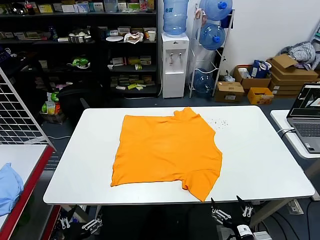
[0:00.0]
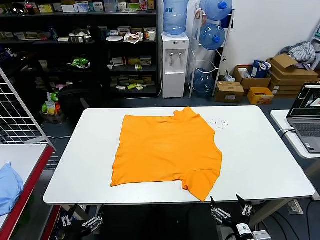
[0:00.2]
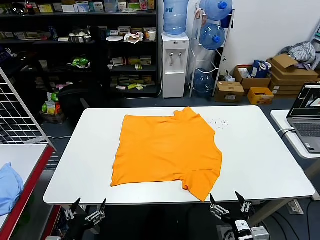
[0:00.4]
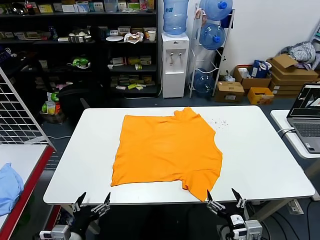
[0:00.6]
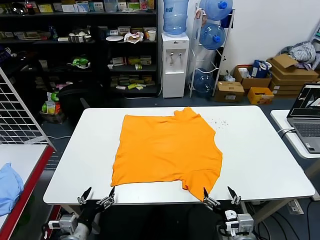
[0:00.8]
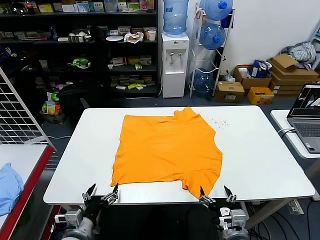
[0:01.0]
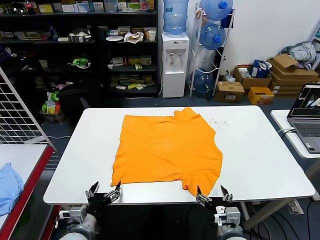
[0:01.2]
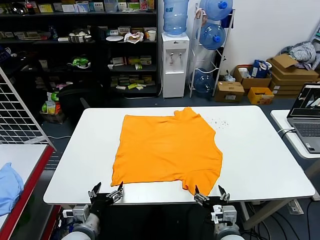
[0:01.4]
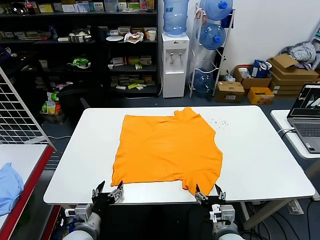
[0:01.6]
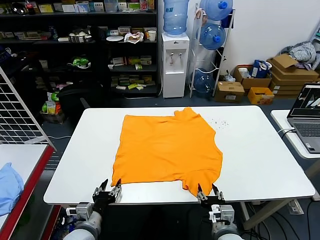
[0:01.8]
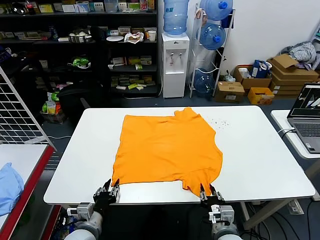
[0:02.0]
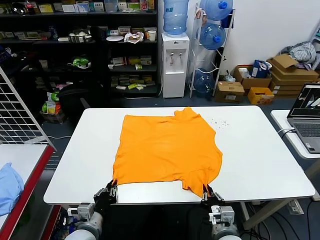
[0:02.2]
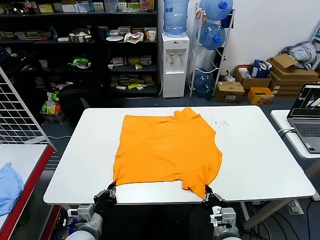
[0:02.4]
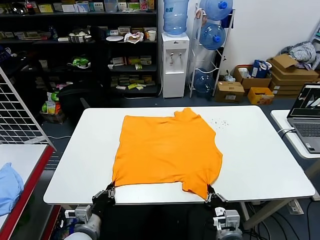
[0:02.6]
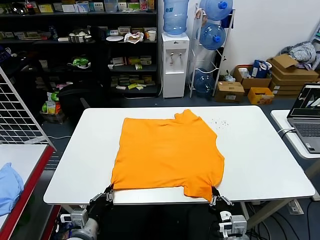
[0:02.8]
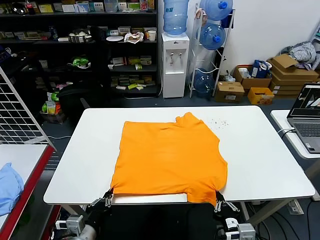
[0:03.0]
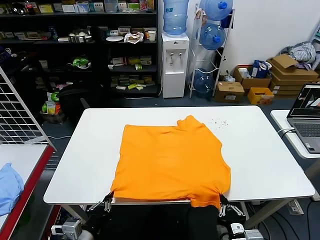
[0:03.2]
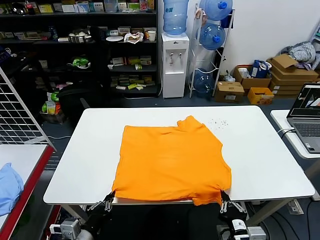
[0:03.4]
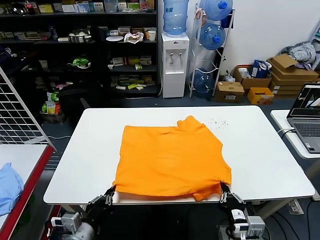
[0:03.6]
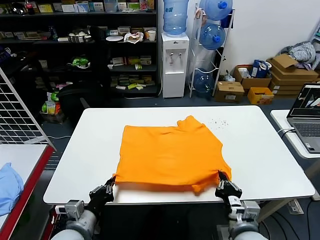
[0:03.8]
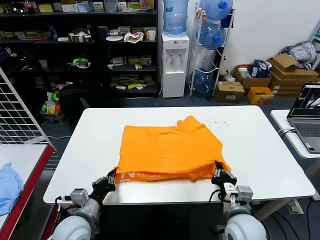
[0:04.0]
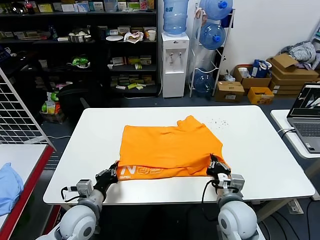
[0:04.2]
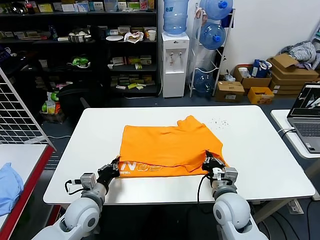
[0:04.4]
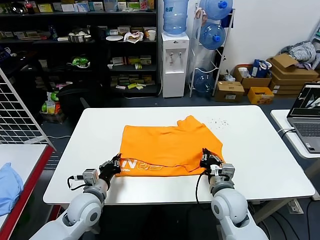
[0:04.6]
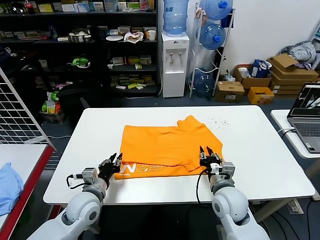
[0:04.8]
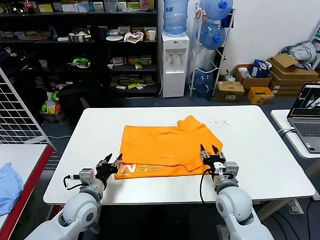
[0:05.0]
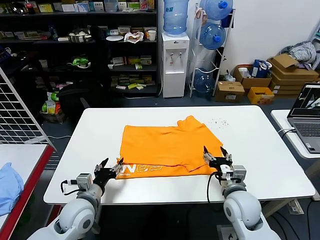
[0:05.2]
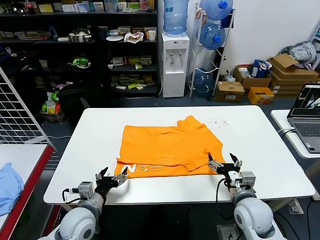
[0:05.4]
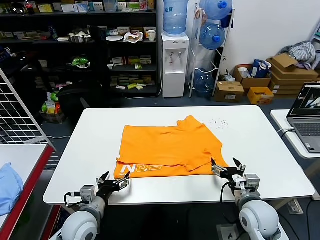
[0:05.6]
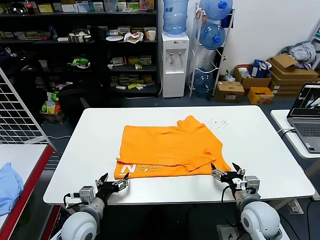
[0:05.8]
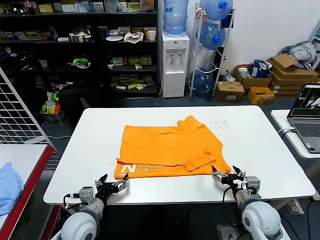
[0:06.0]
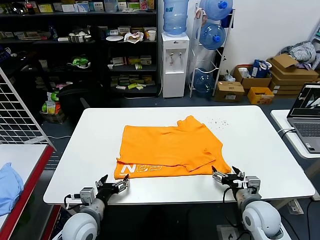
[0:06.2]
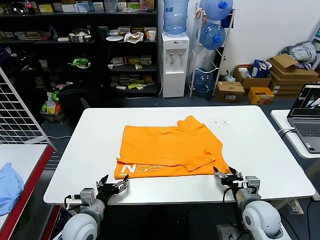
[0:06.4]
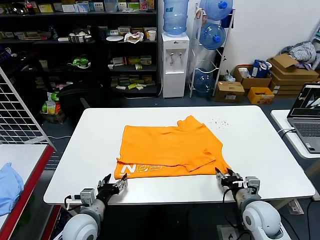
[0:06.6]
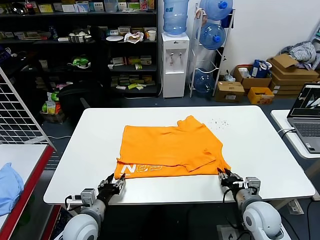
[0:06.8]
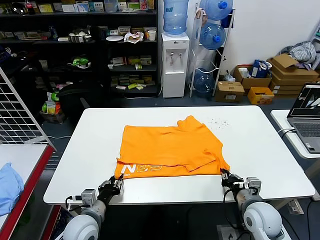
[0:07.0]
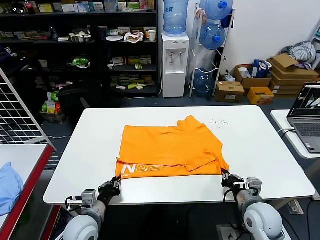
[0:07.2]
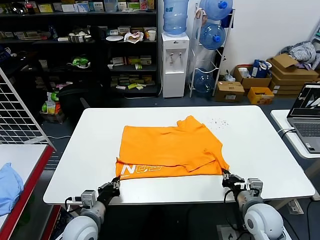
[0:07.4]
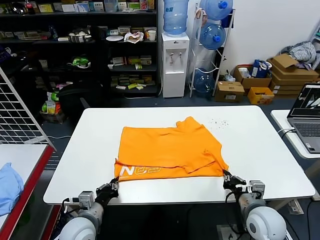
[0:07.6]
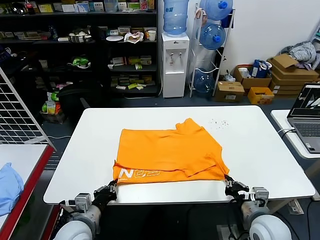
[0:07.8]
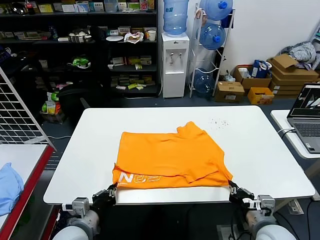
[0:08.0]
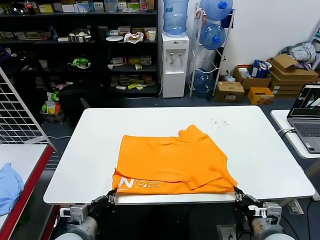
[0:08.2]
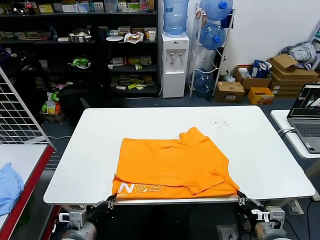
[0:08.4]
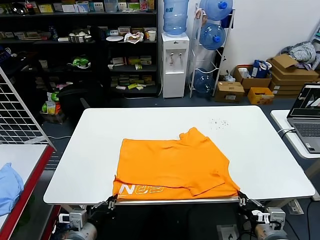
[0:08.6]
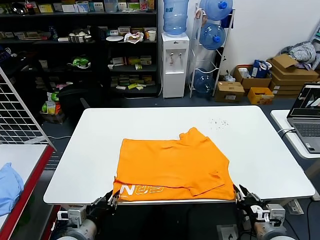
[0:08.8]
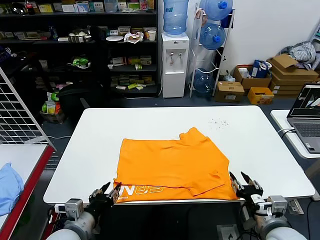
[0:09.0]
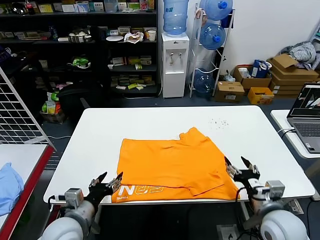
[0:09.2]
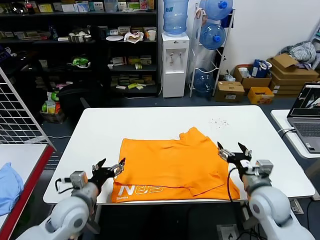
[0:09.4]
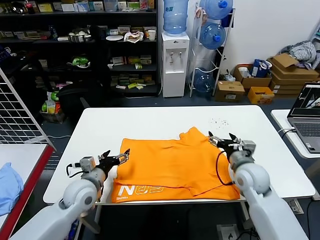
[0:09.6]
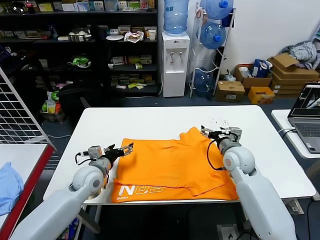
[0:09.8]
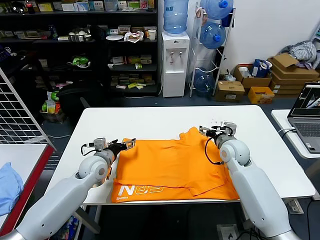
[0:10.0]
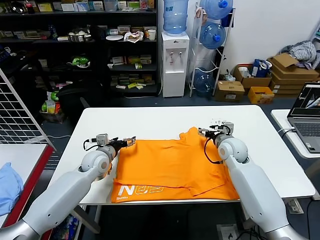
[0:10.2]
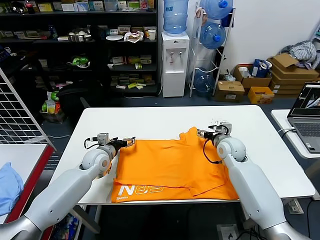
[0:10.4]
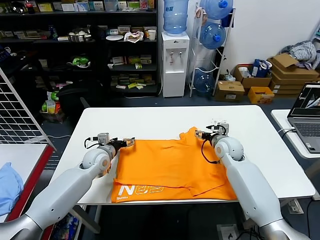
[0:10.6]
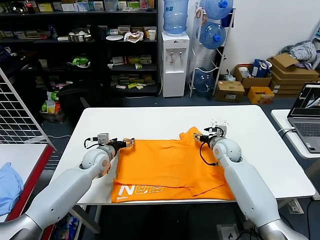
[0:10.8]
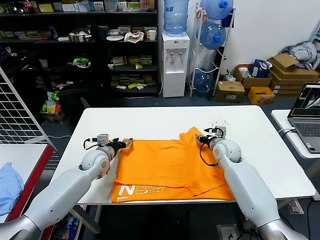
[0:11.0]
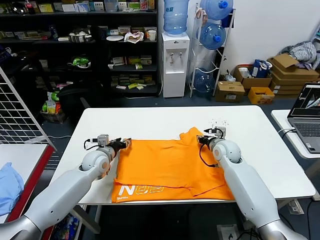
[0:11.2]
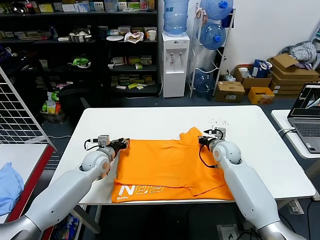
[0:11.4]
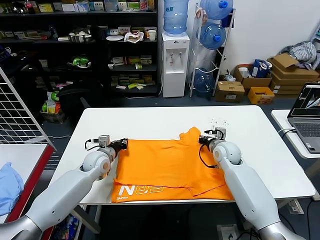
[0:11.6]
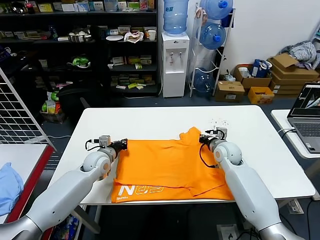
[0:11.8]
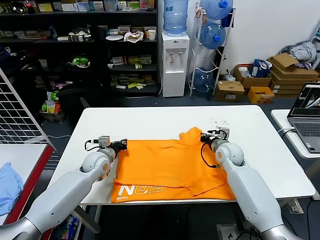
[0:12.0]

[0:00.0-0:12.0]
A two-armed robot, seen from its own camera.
Task of the whole recording: fold and organize the clothes.
Step, 0:00.0 to 0:02.2: use both grippers simultaneously to clamp the lower edge of the clothing fabric.
Step, 0:02.4 to 0:04.6: use both grippers to drag the lower edge of the fabric forward and fold it over the upper edge.
Step, 0:05.0 to 0:08.8: Drag the clothes downward with both gripper.
Step, 0:09.0 to 0:11.6: use both grippers simultaneously to clamp the upper edge of the clothing fabric.
0:01.6 to 0:03.0: The left gripper closes up, while the right gripper moves backward, approximately 5 cm, and closes.
0:03.0 to 0:04.4: The right gripper moves forward, some 15 cm, while the left gripper travels forward by about 10 cm.
0:04.4 to 0:06.0: The left gripper opens its fingers. Meanwhile the right gripper goes about 10 cm to the right, and opens.
0:06.0 to 0:07.6: The right gripper closes. The left gripper closes.
0:07.6 to 0:09.0: The right gripper moves roughly 5 cm, and opens its fingers; the left gripper travels upward and backward by some 10 cm, and opens up.
0:09.0 to 0:10.4: Both grippers travel together forward, some 30 cm. The left gripper opens its fingers, while the right gripper opens.
0:10.4 to 0:12.0: The right gripper closes its fingers, while the left gripper closes.

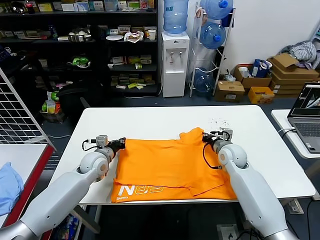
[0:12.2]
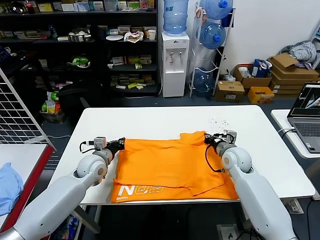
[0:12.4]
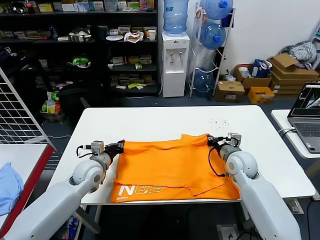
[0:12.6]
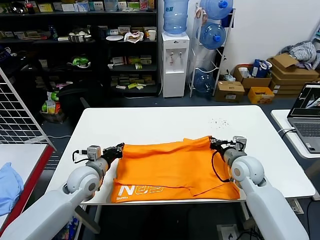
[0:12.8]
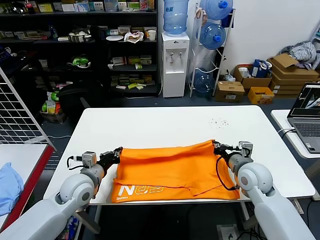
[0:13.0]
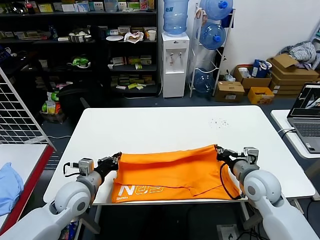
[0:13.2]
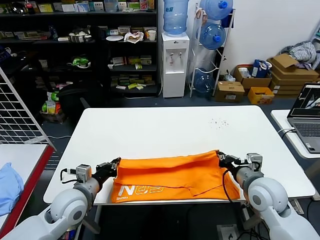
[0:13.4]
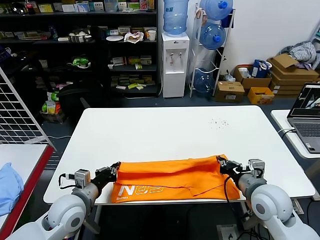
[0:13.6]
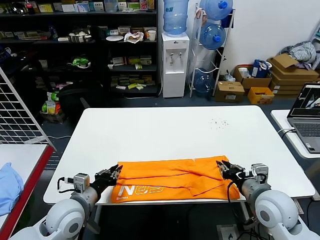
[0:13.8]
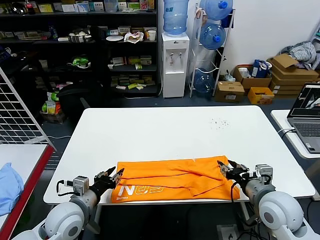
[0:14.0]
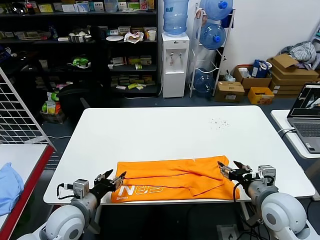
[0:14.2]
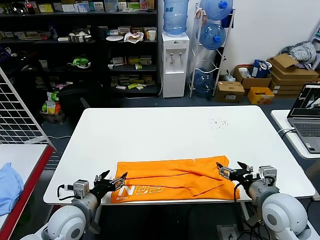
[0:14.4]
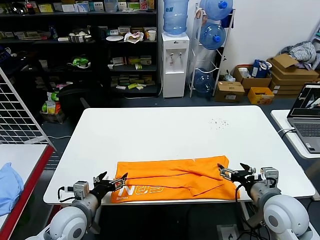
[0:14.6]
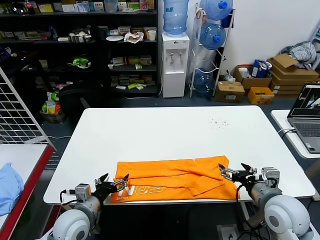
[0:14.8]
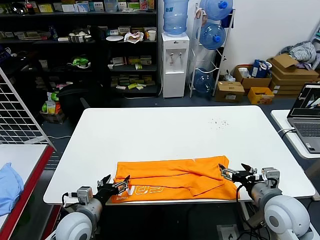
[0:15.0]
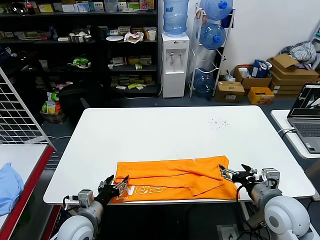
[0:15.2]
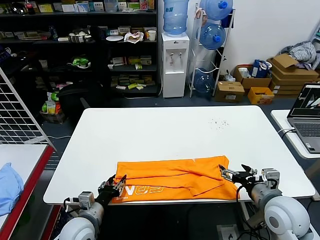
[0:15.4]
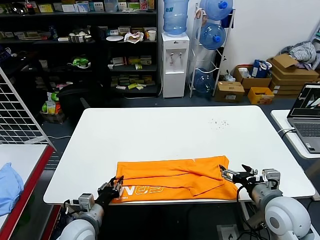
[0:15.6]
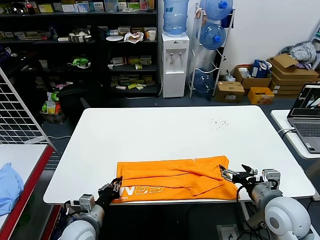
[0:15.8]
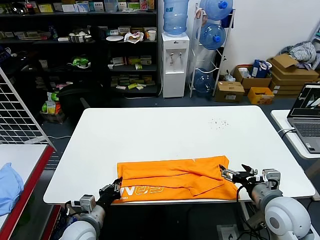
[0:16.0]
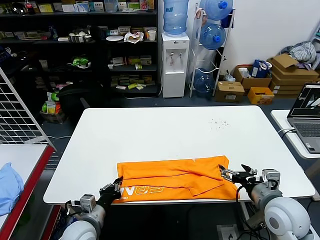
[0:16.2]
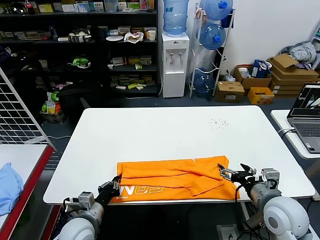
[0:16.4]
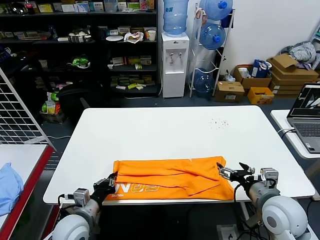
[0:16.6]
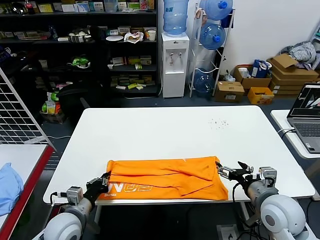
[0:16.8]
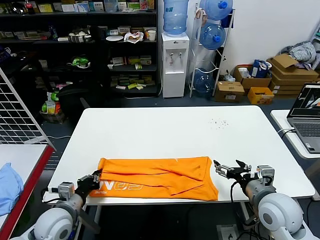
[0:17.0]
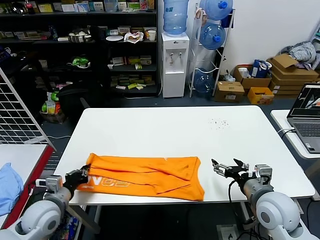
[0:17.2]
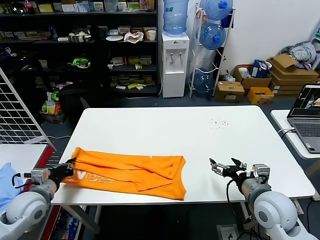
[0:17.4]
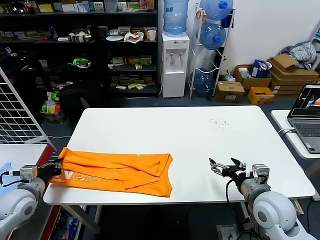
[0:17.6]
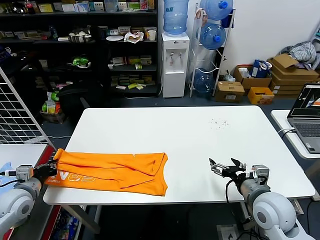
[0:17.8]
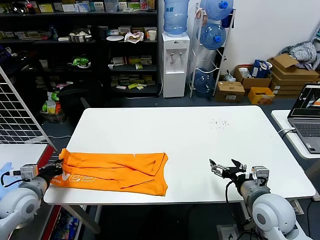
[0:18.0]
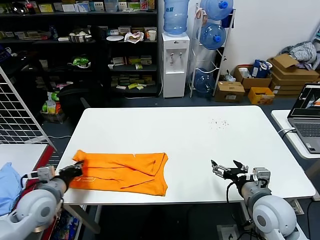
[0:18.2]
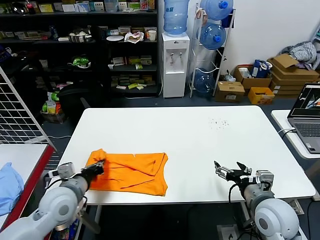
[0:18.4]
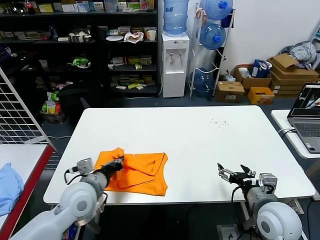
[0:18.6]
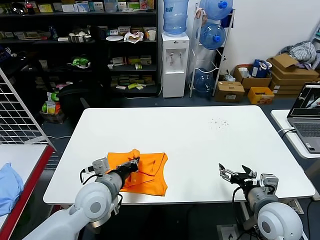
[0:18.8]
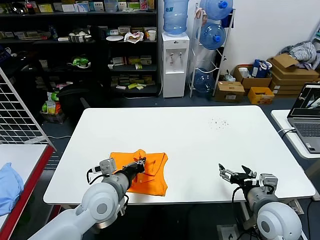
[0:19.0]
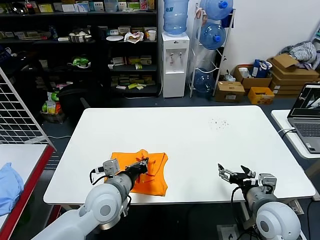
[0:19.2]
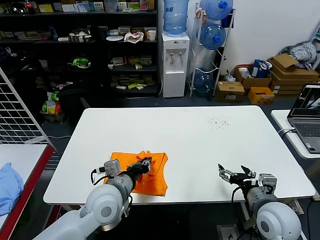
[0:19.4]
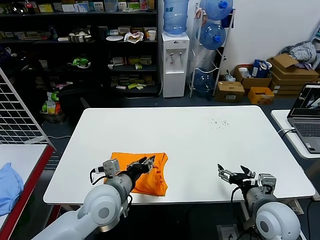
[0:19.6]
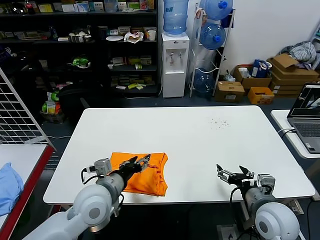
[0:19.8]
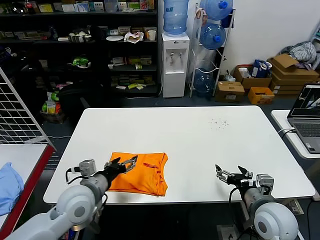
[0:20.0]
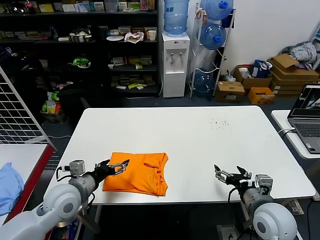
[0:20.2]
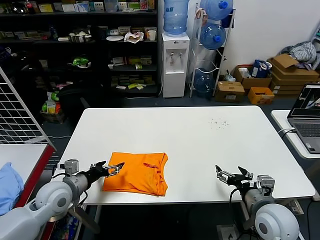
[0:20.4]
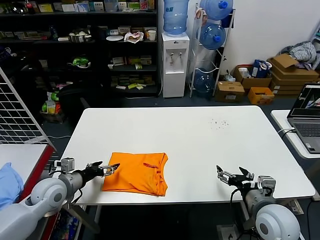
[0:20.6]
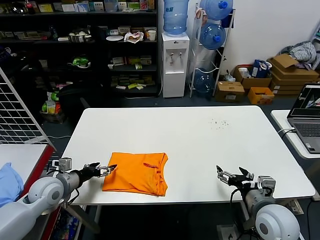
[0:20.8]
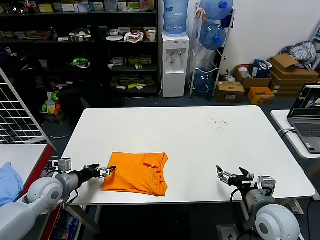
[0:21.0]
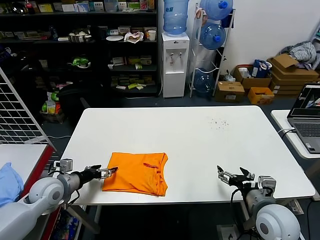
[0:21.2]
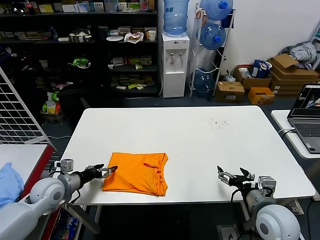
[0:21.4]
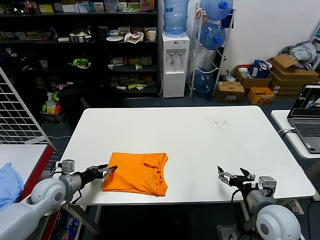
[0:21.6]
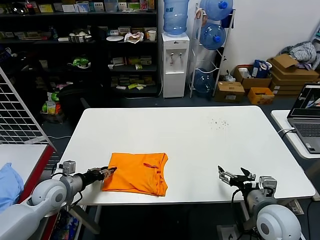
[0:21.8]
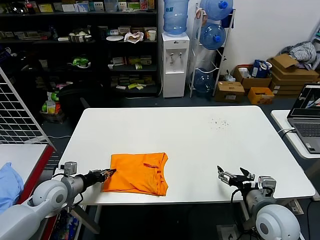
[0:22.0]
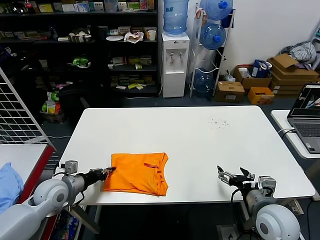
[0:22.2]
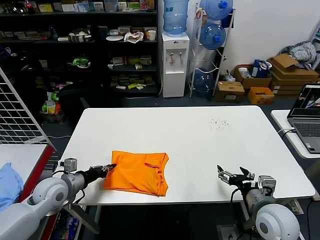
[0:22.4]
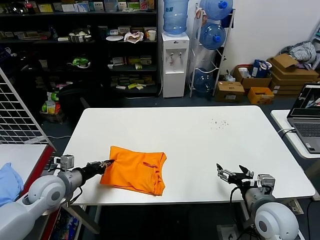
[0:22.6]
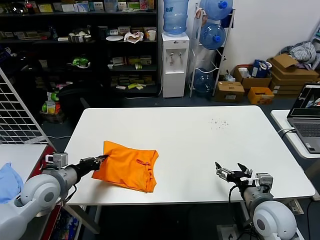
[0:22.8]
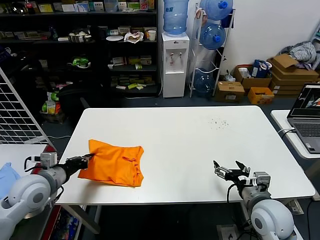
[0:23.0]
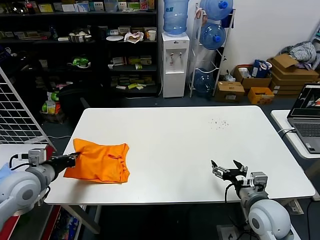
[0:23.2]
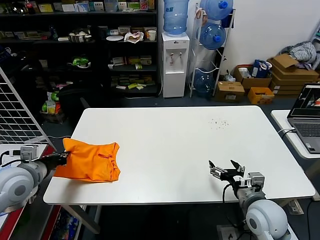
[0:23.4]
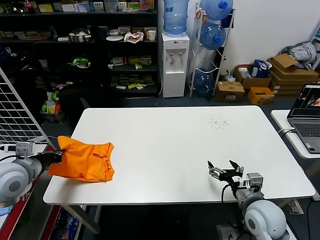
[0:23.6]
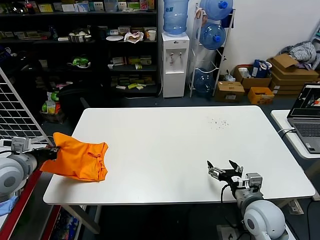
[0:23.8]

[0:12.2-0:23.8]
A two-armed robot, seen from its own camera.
Task of the whole recording: fold and organize the clothes.
Step, 0:12.2 to 0:13.8: use both grippers to drag the upper edge of the fabric backward and fold it over the lower edge.
Step, 0:14.0 to 0:15.8: use the left gripper to clamp the left edge of the fabric.
Step, 0:16.0 to 0:19.4: use the left gripper to drag the left edge of the fabric to the left and folds it over the right edge.
0:12.2 to 0:13.6: The grippers both shift backward by roughly 20 cm.
0:13.6 to 0:15.0: The left gripper ends up approximately 5 cm from where it was, and opens up. Meanwhile the right gripper opens up.
0:15.0 to 0:16.6: The left gripper closes up.
0:16.6 to 0:18.0: The left gripper moves to the left, roughly 20 cm.
0:18.0 to 0:19.4: The left gripper heads to the right, covering approximately 30 cm.
0:19.4 to 0:21.0: The left gripper travels to the left by approximately 20 cm, and opens up.
0:21.0 to 0:22.4: The left gripper closes up.
0:22.4 to 0:23.8: The left gripper travels upward and to the left by roughly 15 cm.
